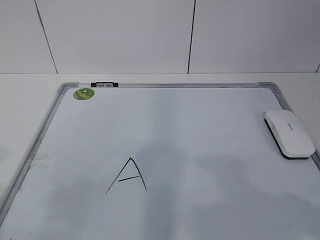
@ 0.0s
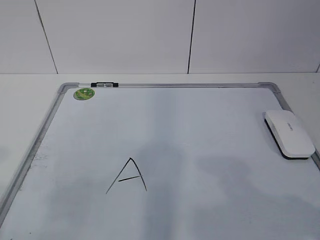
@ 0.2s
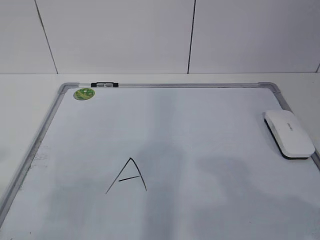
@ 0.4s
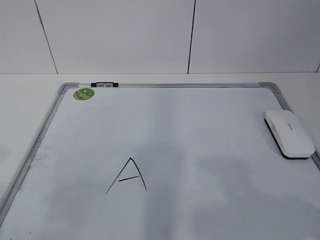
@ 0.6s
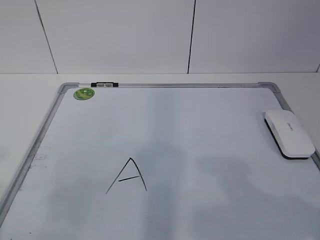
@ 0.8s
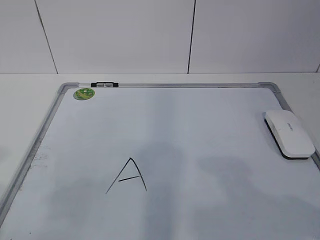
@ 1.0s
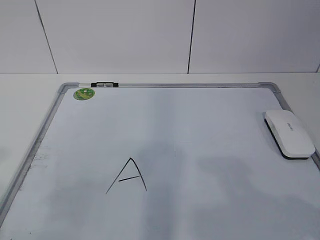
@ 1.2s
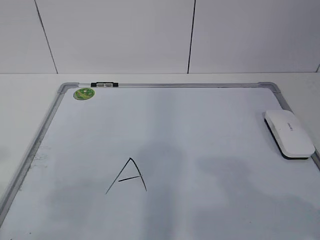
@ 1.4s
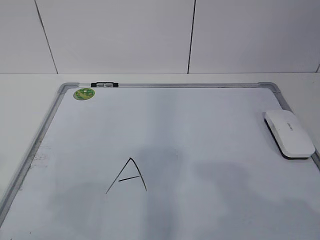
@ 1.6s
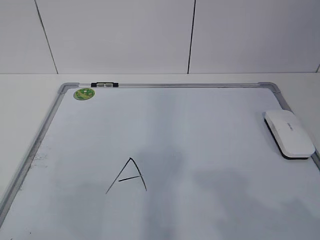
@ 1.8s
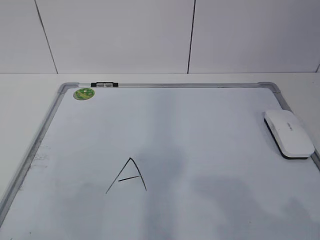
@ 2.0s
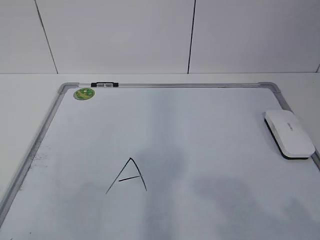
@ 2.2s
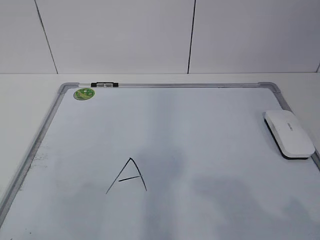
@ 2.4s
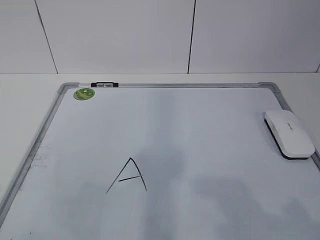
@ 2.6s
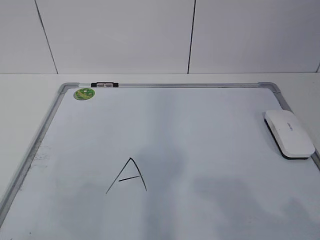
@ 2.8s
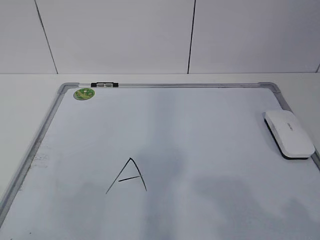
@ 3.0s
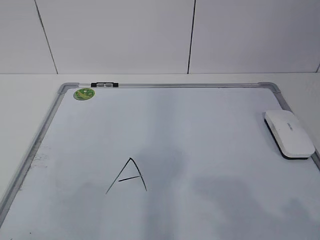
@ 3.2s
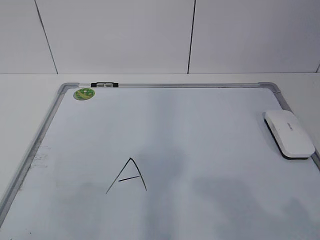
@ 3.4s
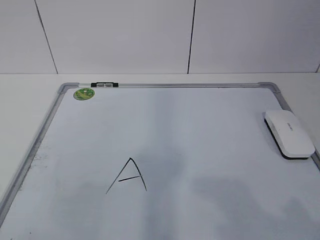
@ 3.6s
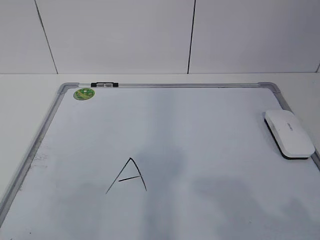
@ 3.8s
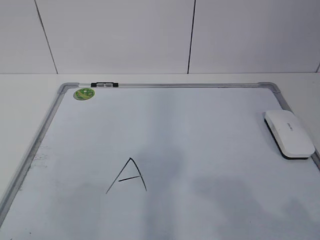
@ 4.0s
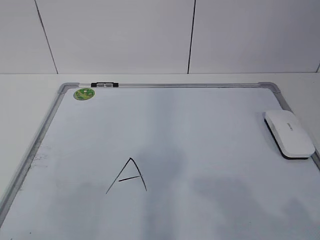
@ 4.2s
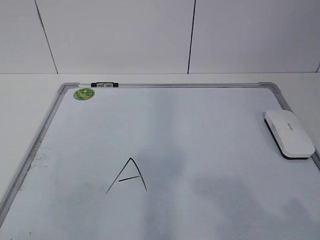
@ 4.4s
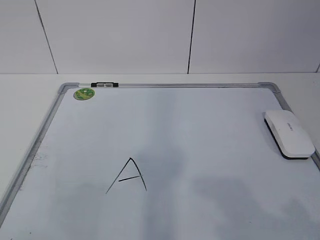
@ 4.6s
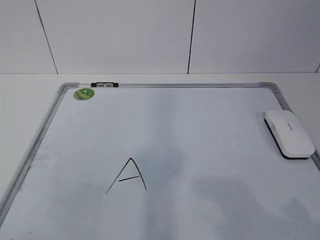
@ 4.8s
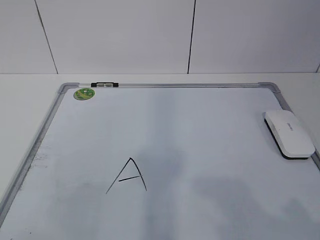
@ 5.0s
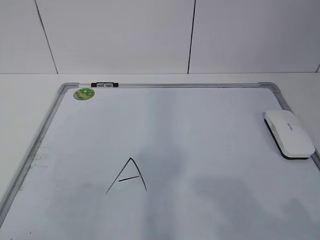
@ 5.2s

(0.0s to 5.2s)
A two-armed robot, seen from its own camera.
Task of the whole recording: pick up the eraser on the blackboard and erase the letter "a".
3.4s - 5.2s: The two grippers keep their place.
